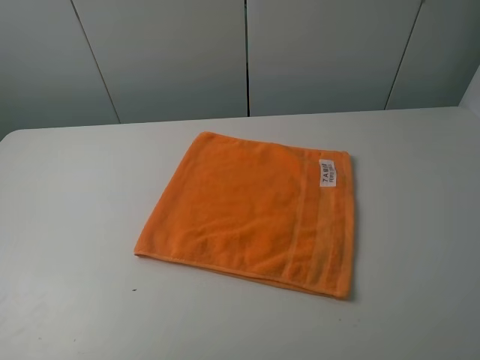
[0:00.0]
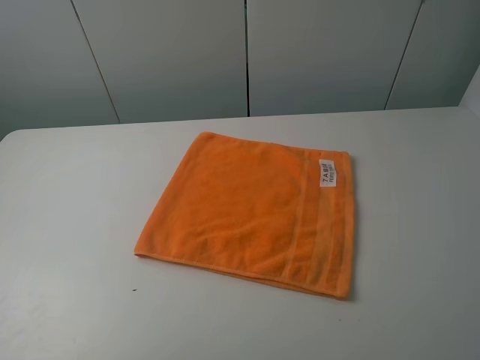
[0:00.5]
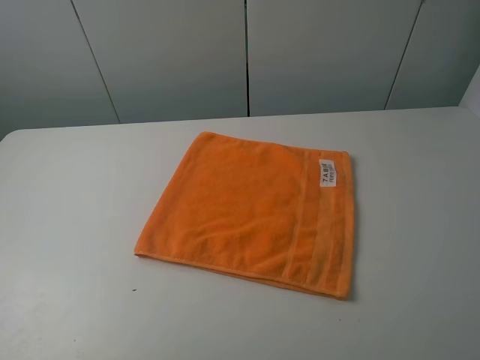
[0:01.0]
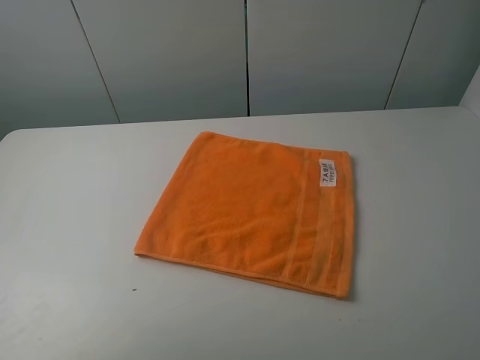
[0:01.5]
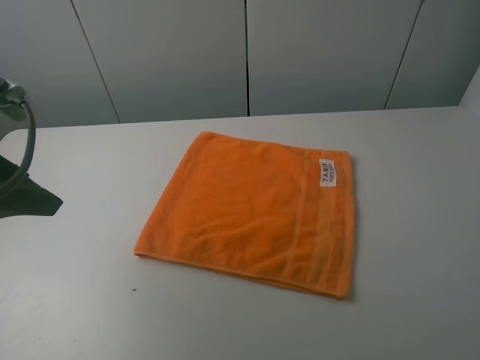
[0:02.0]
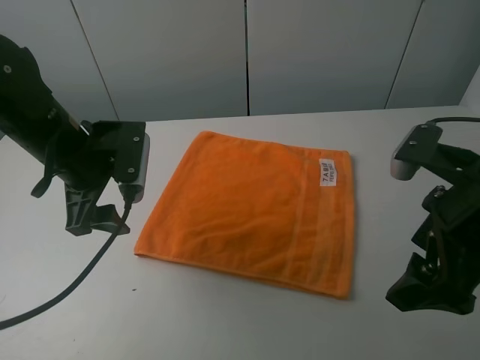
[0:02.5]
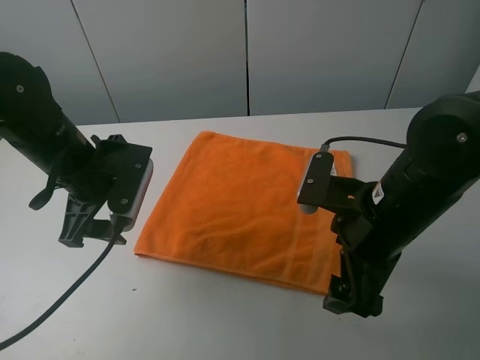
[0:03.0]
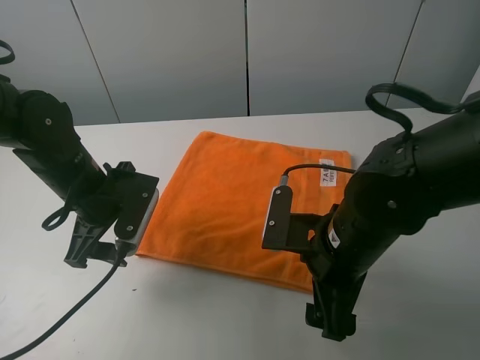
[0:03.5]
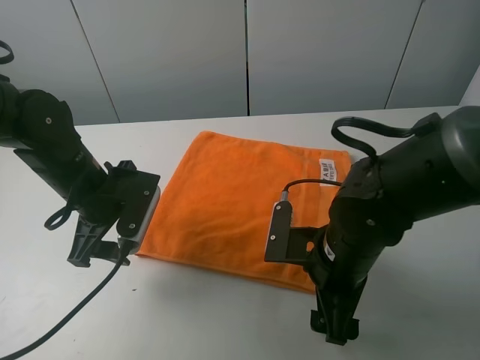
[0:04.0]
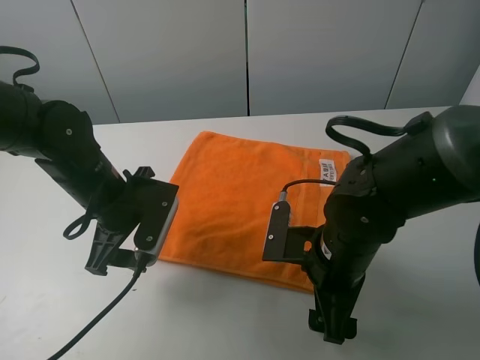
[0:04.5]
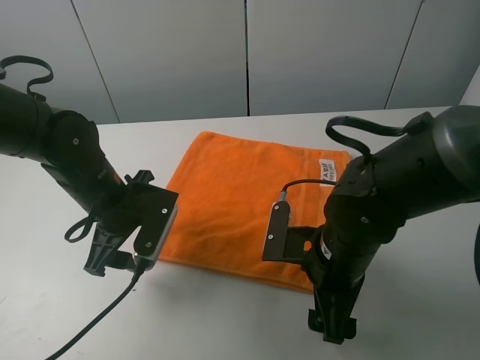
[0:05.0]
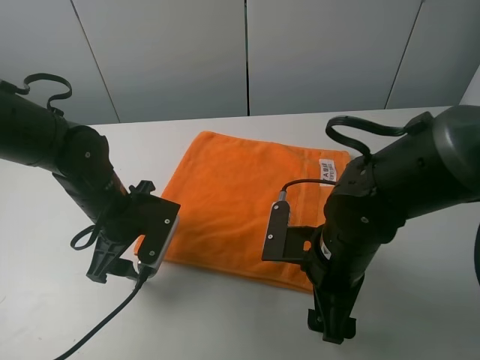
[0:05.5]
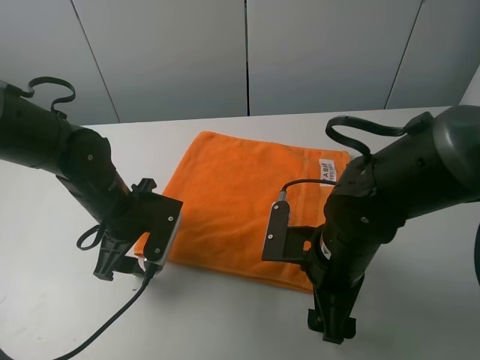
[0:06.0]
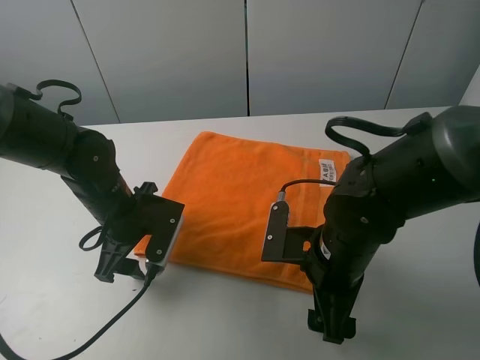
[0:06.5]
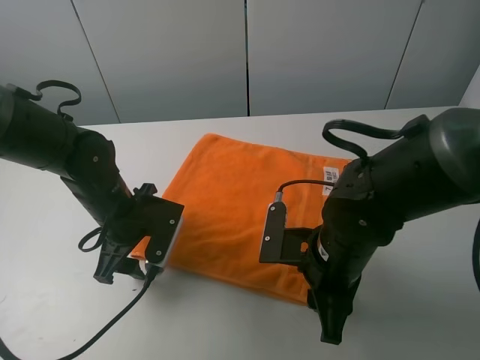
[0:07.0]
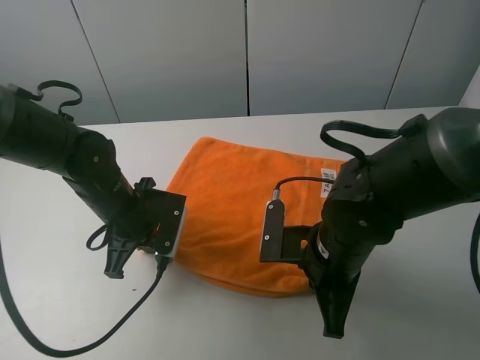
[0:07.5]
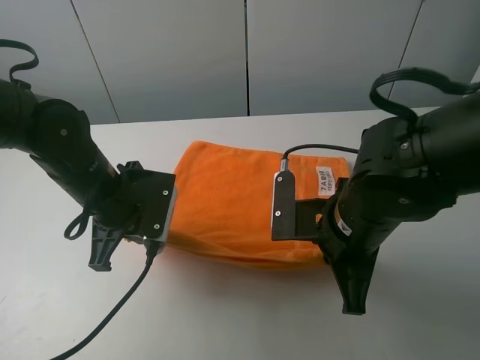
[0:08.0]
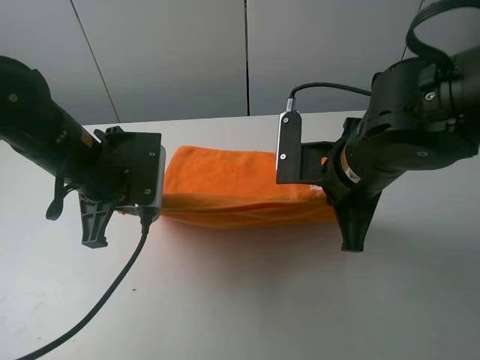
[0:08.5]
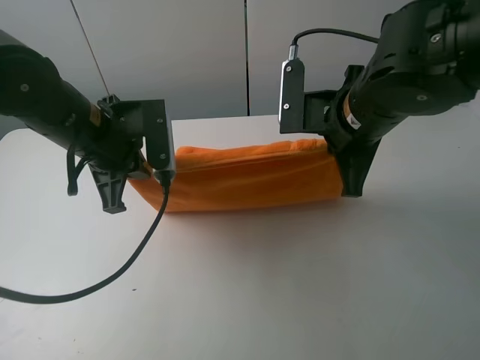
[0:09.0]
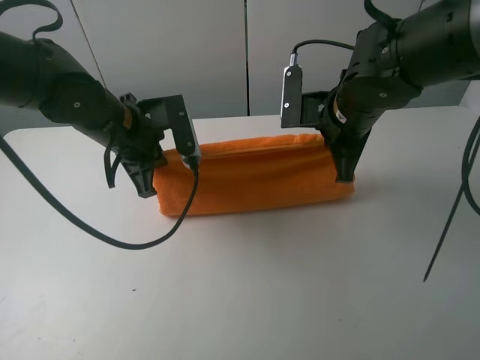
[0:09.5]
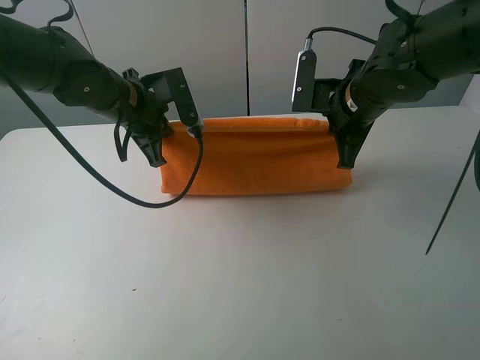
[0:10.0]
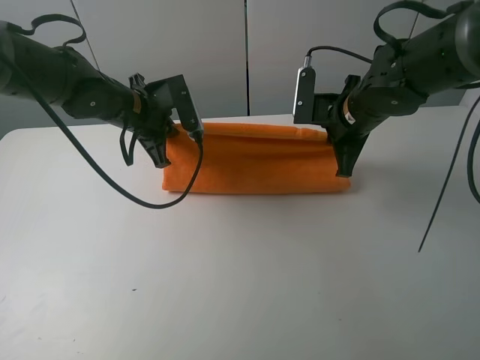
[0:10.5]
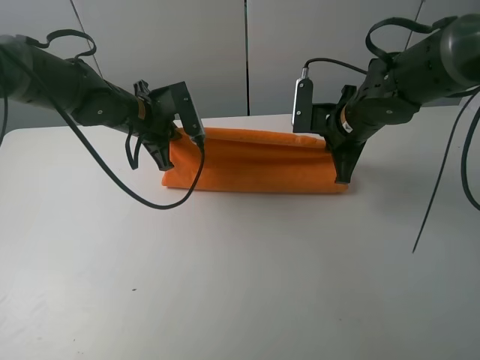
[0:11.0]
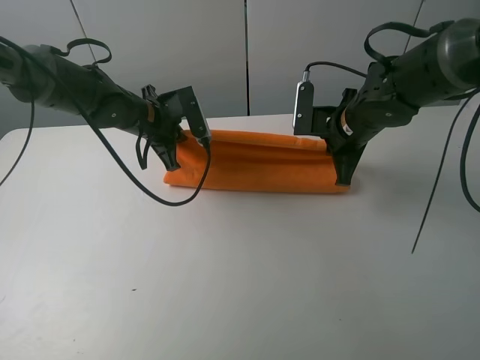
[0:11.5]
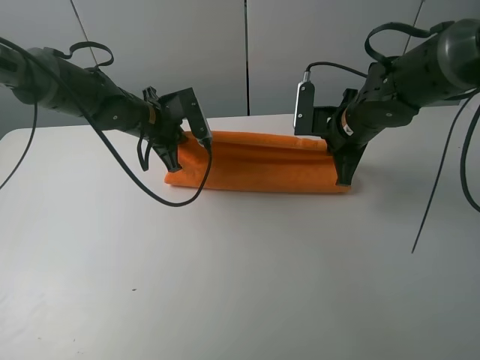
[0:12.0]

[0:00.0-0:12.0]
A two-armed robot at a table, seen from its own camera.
Task of the whole recording: fold the towels on the table.
Step, 0:00.0 to 0:07.0: Grasp the orange towel with the right gripper.
0:00.0 to 0:02.0: The left gripper goes approximately 20 cm forward.
0:02.0 to 0:04.0: The left gripper travels downward and to the right by approximately 15 cm; the right gripper heads downward, to the left and forward, covering roughly 30 cm.
0:04.0 to 0:06.0: The grippers stay close to where they were, moving slightly.
0:06.0 to 0:08.0: The left gripper closes, while the right gripper moves upward, approximately 5 cm, and closes its fingers.
0:08.0 to 0:10.0: The grippers both shift forward by about 15 cm.
0:10.0 to 0:12.0: The right gripper ends up roughly 5 cm from where it was. Meanwhile the left gripper travels downward by some 5 cm.

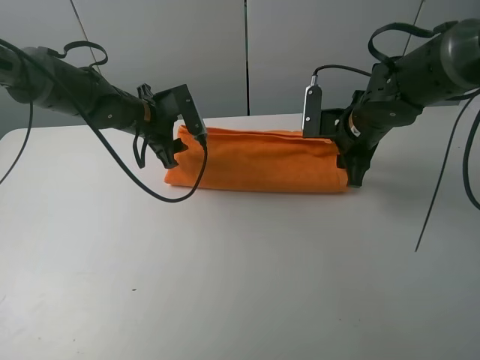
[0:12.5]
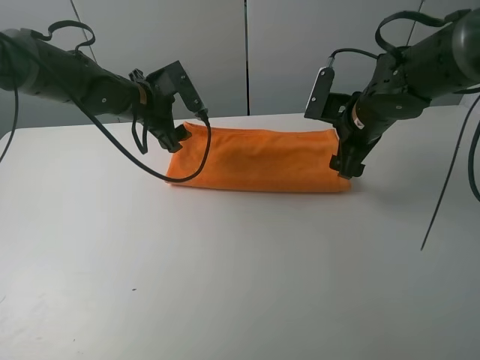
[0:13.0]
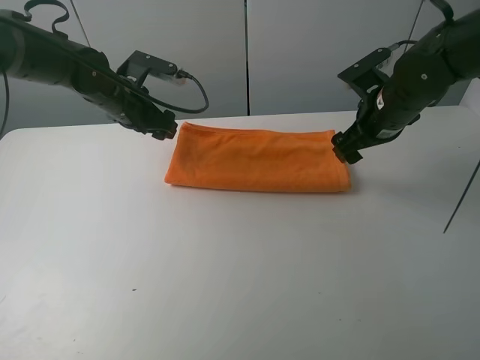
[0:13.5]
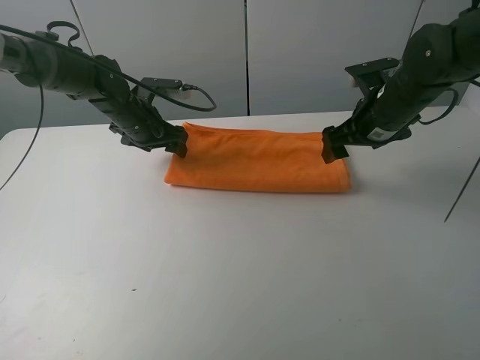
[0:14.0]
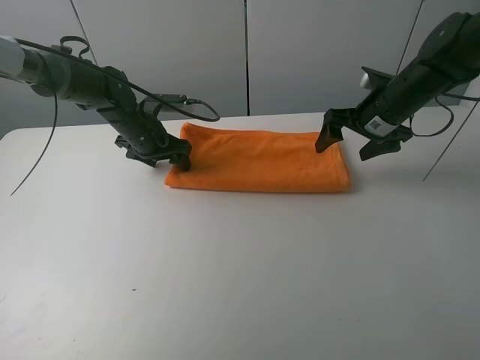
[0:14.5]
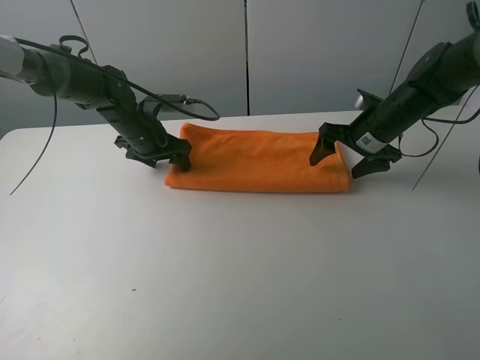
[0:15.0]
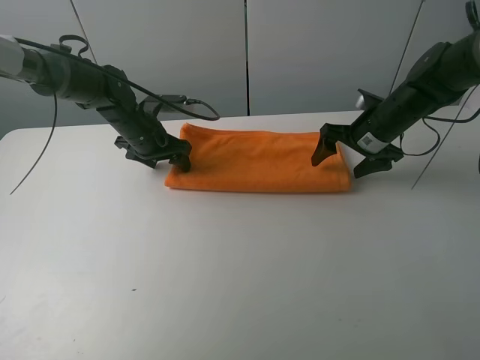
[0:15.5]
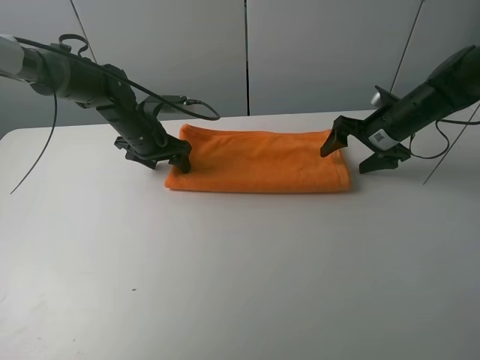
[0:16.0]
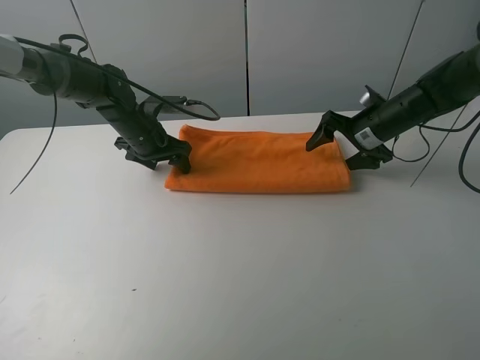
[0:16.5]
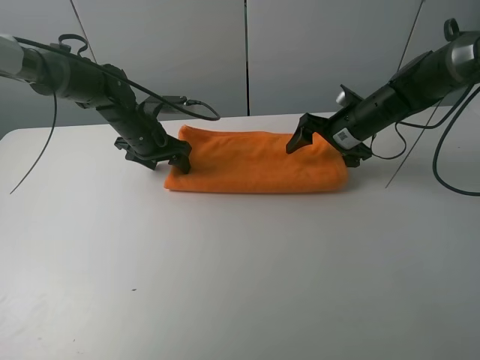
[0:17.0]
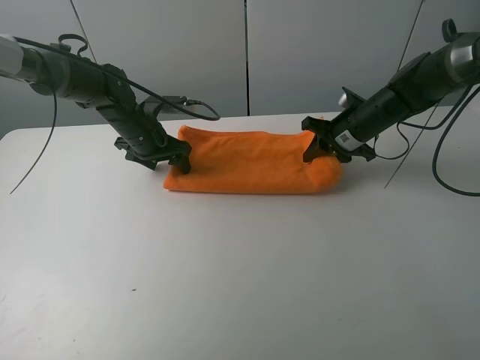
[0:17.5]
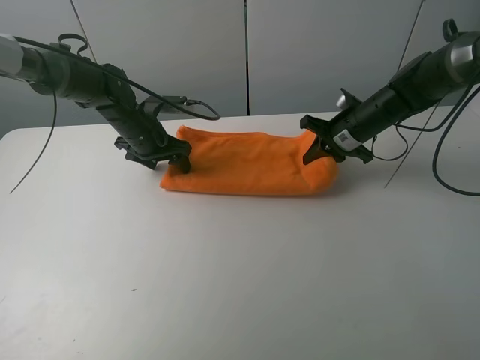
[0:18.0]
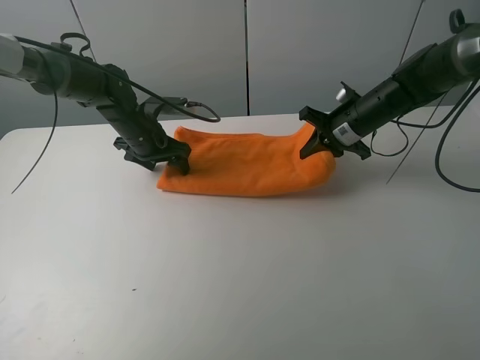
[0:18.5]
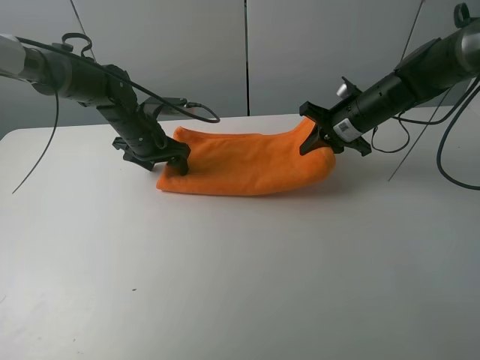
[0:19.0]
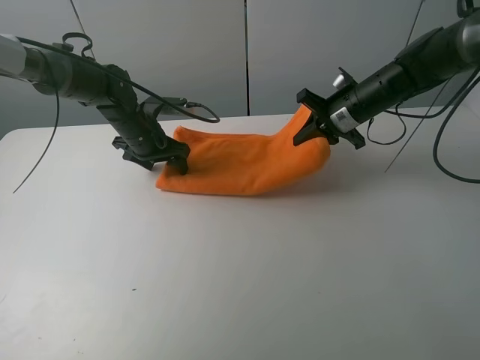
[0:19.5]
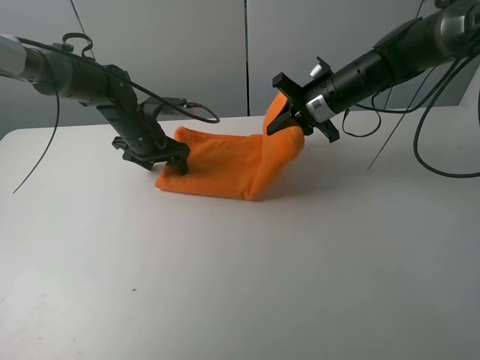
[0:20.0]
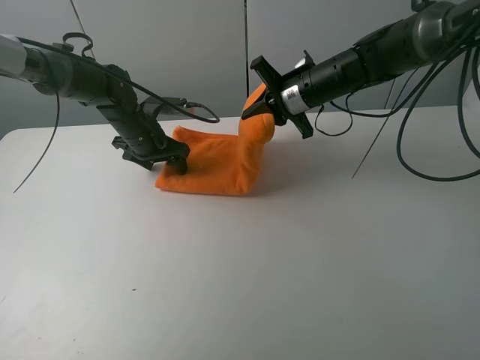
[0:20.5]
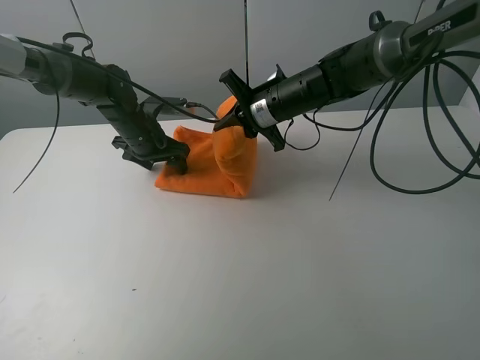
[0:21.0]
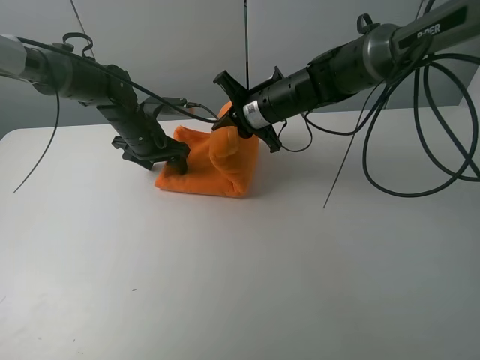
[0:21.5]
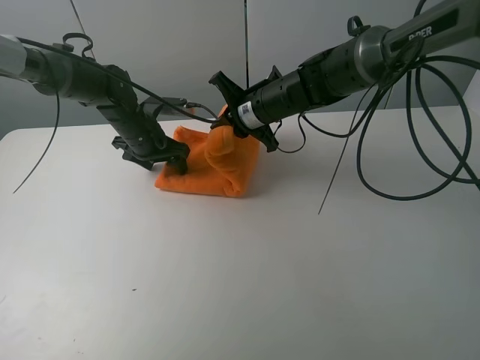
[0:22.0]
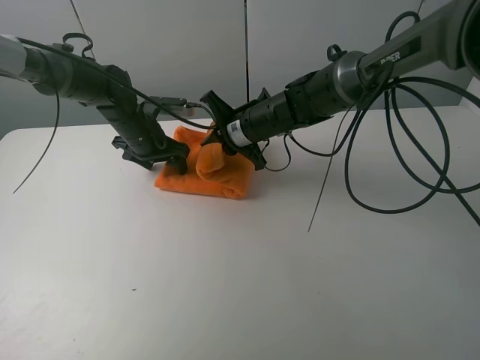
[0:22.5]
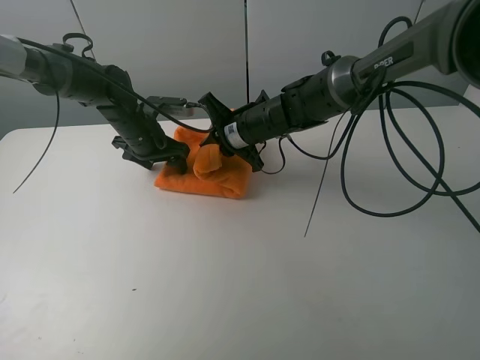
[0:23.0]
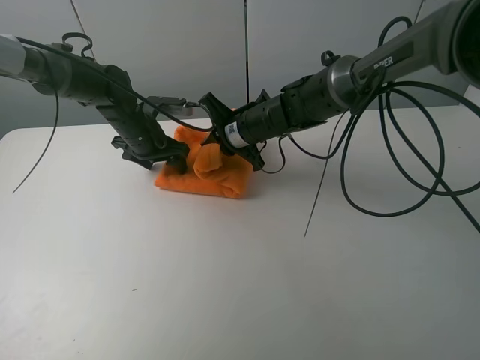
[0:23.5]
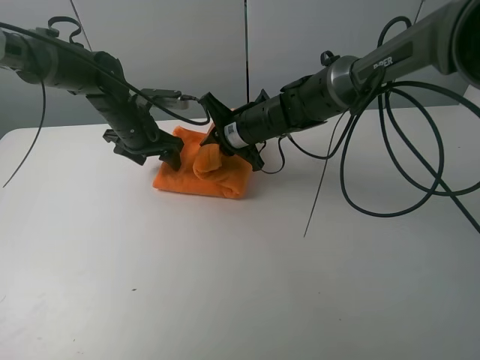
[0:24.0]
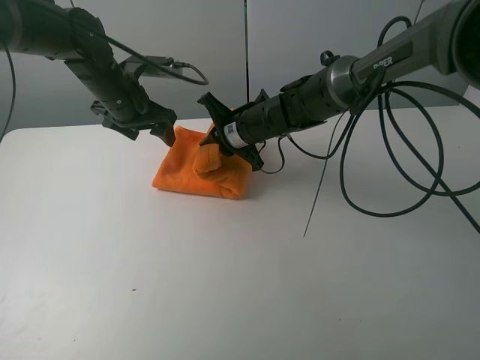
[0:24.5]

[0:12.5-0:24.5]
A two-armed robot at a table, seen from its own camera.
Task of the whole recording: fold the towels on the table.
Step, 0:13.5 to 0:14.0: Press on the orange towel with the left gripper.
0:12.5 to 0:14.5: The right gripper moves some 5 cm, and opens up.
0:14.5 to 0:16.5: The right gripper changes place by approximately 5 cm.
0:16.5 to 0:18.5: The right gripper closes up.
0:18.5 to 0:20.5: The right gripper is displaced to the left by roughly 10 cm.
0:20.5 to 0:22.5: The right gripper heads to the left, covering roughly 10 cm.
0:22.5 to 0:24.5: The left gripper is displaced upward by roughly 10 cm.

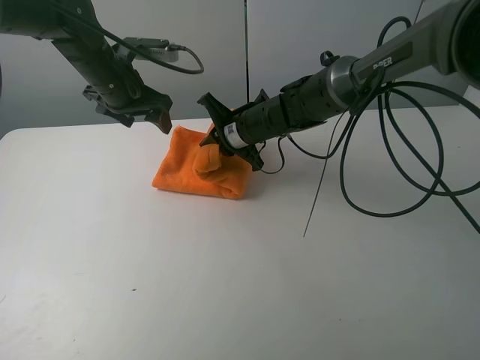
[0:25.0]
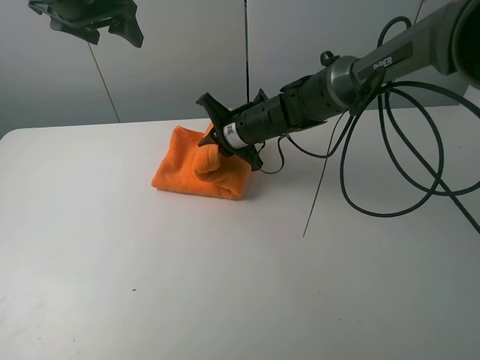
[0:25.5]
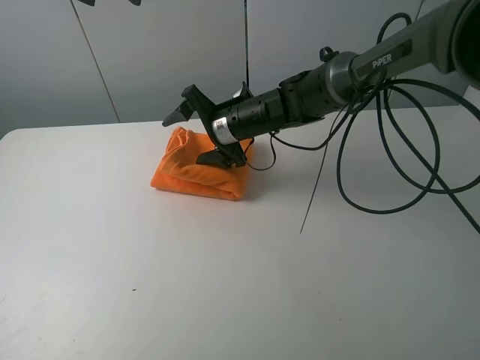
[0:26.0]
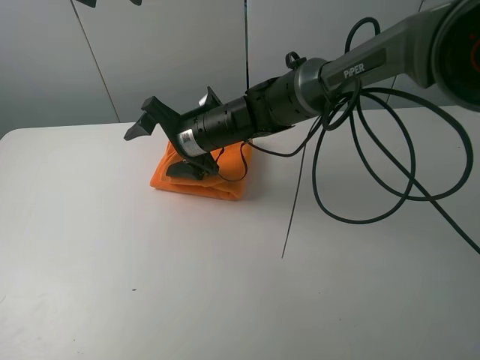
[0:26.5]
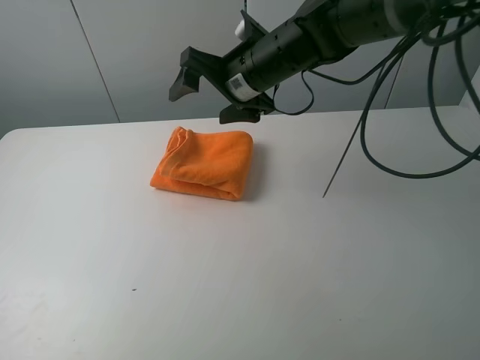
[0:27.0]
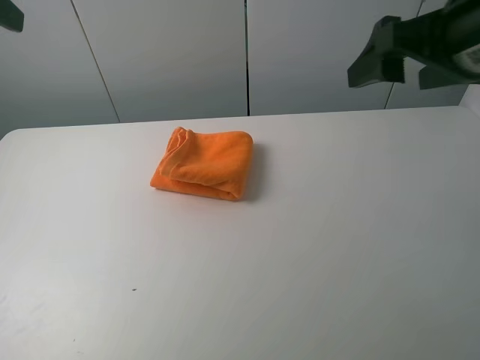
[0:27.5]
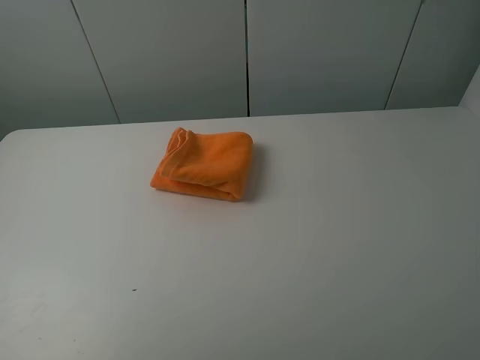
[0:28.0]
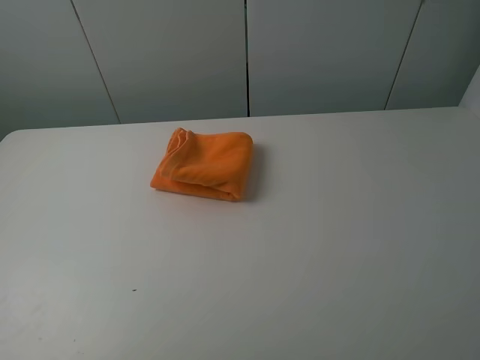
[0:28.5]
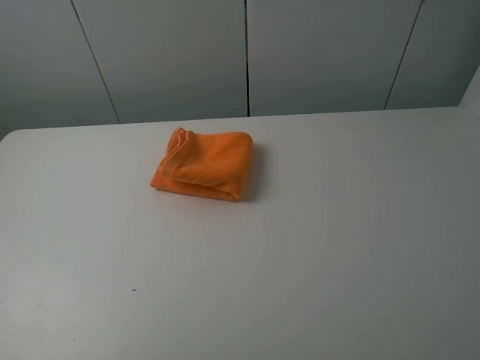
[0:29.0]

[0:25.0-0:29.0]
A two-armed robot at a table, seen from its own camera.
Task of the whole recording: fold the towels on the table.
0:25.0 to 0:27.0: The left gripper shifts about 20 cm upward, while the right gripper heads upward, covering about 10 cm, and opens its fingers.
0:27.0 to 0:29.0: The left gripper moves backward, about 40 cm. The right gripper goes roughly 40 cm backward and to the right.
